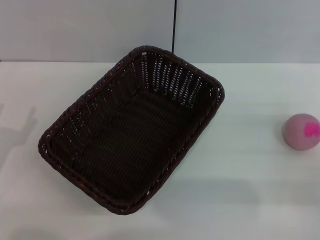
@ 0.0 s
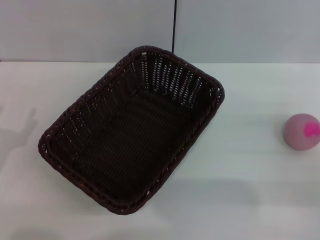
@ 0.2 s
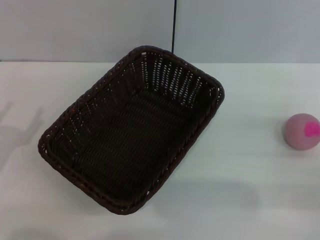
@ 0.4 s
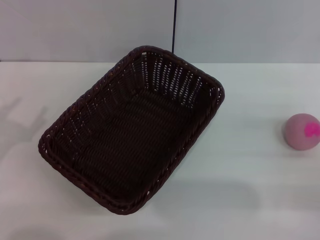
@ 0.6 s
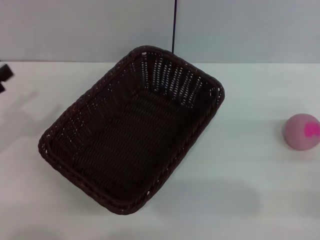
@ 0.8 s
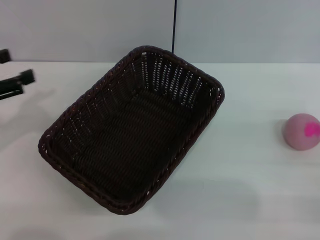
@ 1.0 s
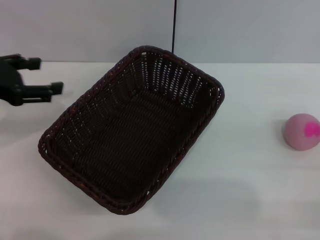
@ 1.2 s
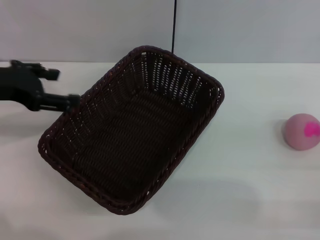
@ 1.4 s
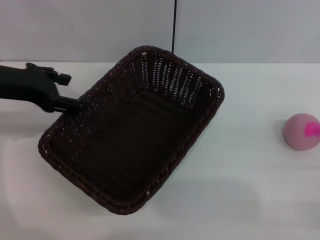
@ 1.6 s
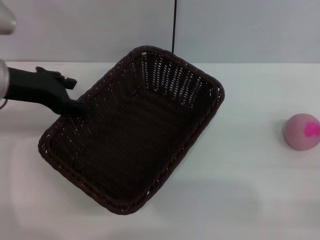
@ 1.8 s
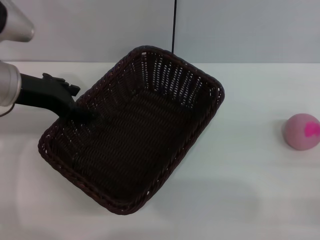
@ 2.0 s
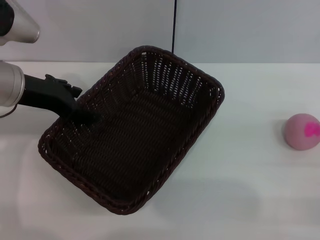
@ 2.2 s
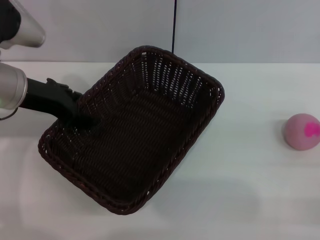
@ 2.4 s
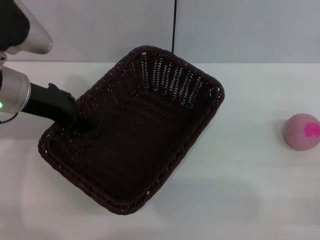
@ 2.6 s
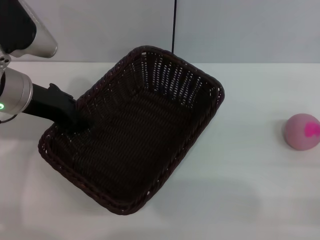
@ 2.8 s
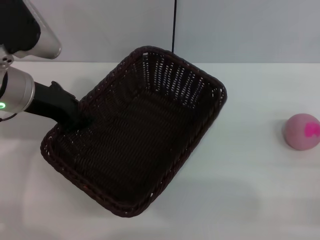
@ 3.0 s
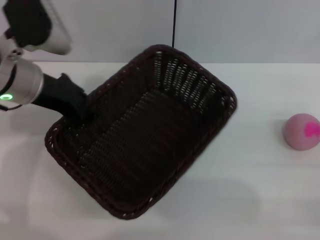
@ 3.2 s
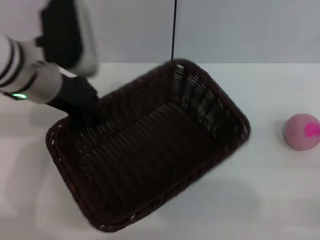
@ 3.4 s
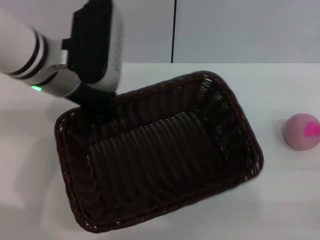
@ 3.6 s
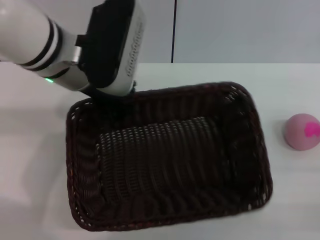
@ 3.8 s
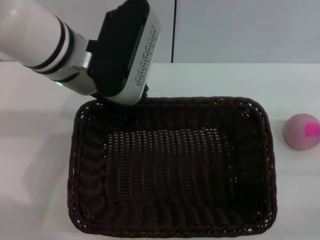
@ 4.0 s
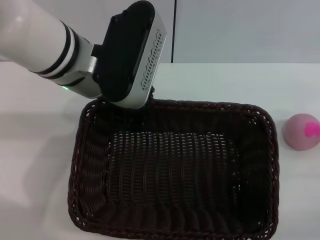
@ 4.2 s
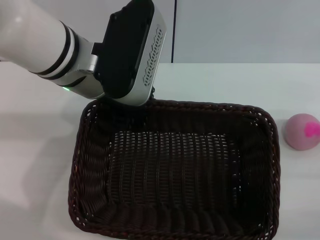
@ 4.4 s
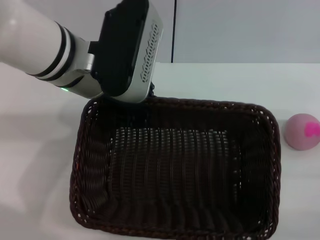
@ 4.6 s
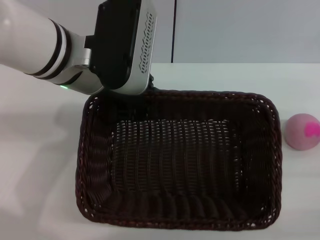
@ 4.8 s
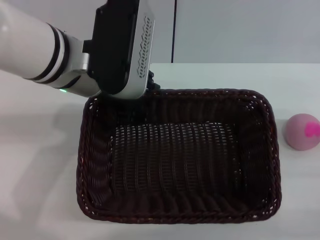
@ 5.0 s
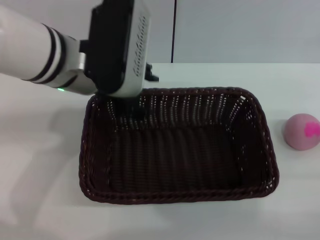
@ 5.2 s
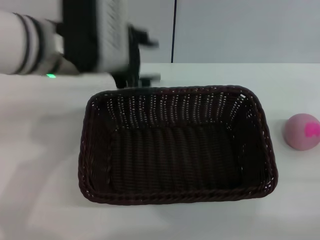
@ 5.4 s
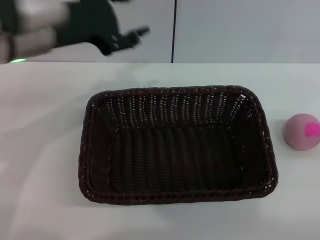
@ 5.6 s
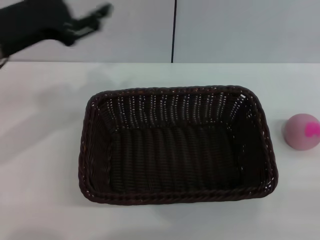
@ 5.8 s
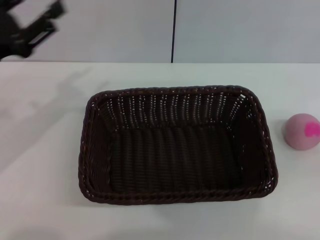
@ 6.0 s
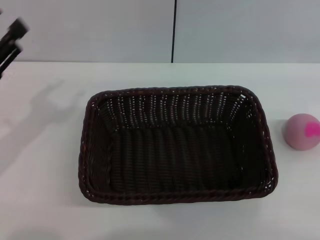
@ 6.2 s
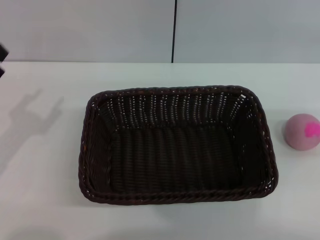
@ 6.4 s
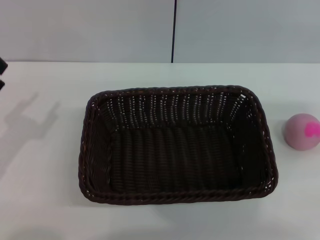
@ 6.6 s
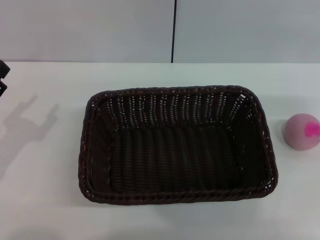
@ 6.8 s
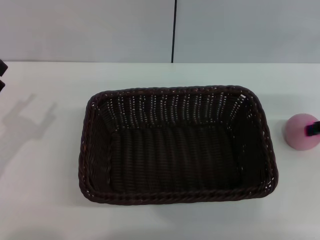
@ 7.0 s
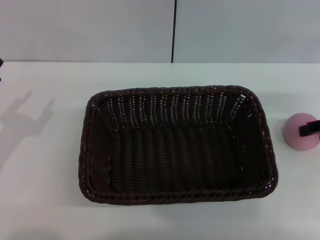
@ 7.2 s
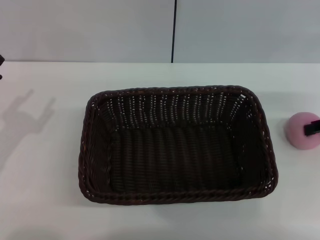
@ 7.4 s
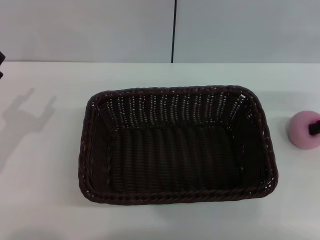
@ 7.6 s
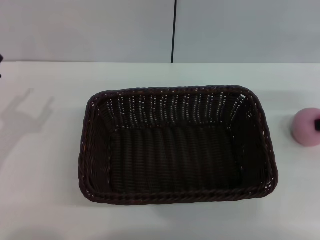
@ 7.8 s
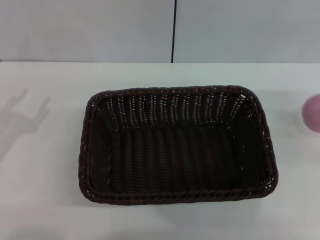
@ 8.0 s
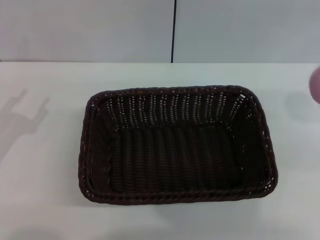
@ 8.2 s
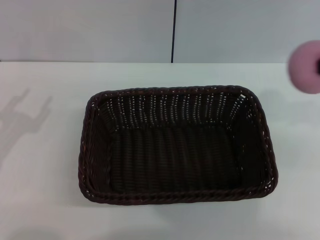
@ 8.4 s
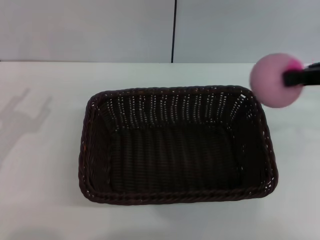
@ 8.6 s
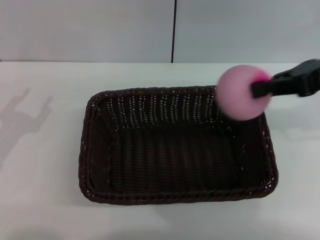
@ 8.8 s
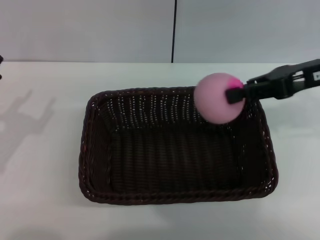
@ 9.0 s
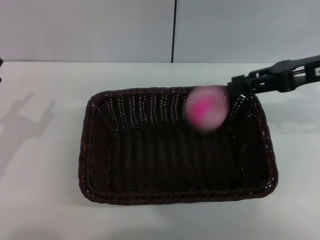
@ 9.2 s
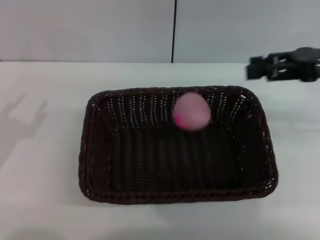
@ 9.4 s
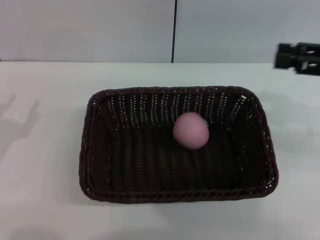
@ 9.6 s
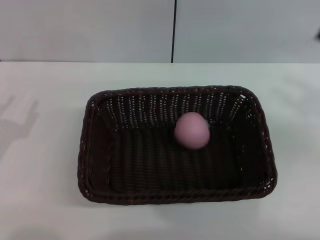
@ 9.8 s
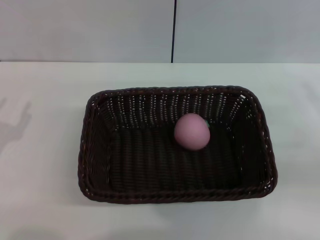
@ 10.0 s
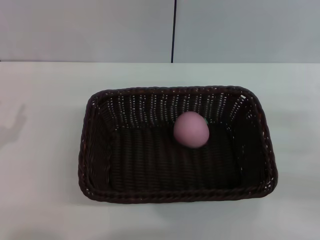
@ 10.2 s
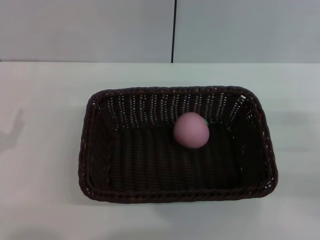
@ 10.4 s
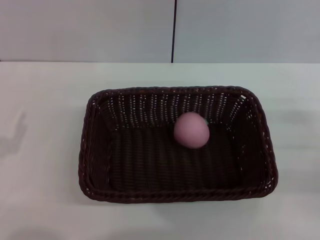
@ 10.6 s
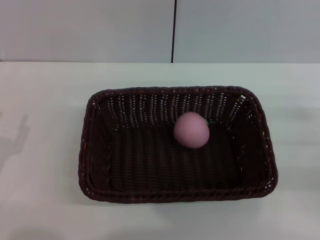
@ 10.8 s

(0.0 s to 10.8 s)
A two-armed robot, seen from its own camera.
Step, 0.0 s - 3.4 s: Pick up the dark basket with the left gripper.
Step, 3.6 s - 5.4 s: Place the dark basket in the center of view with the right gripper.
Step, 5.6 s - 8.0 s: Pick up the peach with the left gripper.
0.0 s - 1.6 s: The left gripper goes approximately 20 cm upward and forward.
1.6 s - 3.0 s: The left gripper is displaced to the right by approximately 5 cm, and closes up.
3.0 s - 4.6 s: The left gripper travels to the right by about 10 cm, and closes.
4.6 s - 6.2 s: The left gripper goes approximately 20 cm to the left, and opens its fingers; the right gripper moves upward and to the right, about 15 cm.
6.2 s - 7.8 s: The right gripper goes some 15 cm forward, to the left and downward, and closes up. Meanwhile the left gripper heads downward, covering some 5 cm.
7.8 s - 9.2 s: The right gripper moves to the left and upward, roughly 10 cm.
9.2 s - 10.8 s: The left gripper shifts by roughly 5 cm, while the right gripper is displaced downward, backward and to the right by some 20 cm, and opens.
